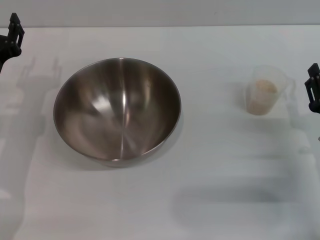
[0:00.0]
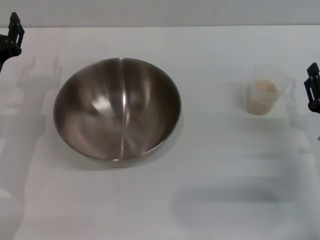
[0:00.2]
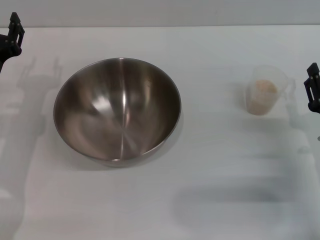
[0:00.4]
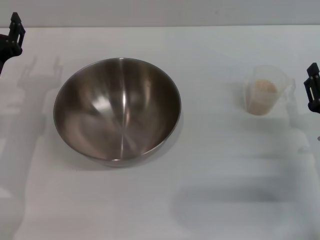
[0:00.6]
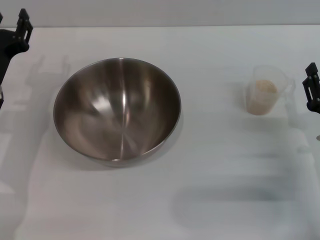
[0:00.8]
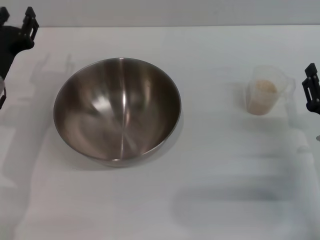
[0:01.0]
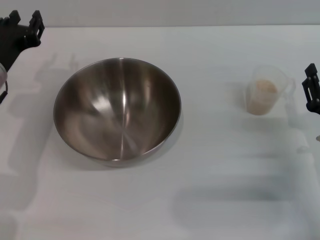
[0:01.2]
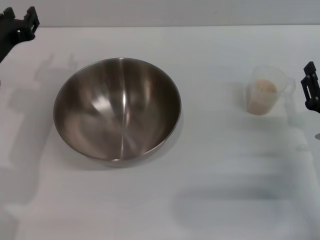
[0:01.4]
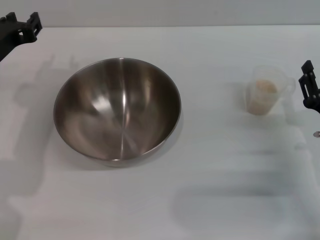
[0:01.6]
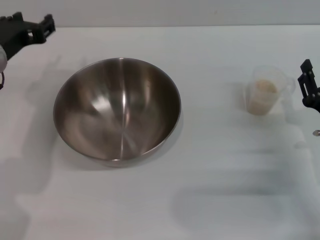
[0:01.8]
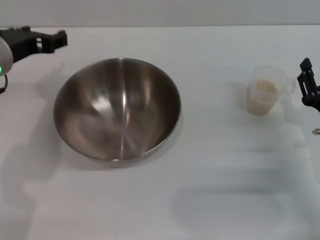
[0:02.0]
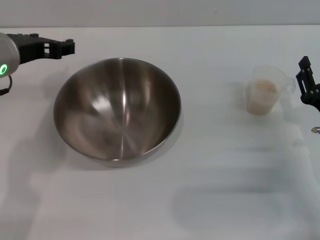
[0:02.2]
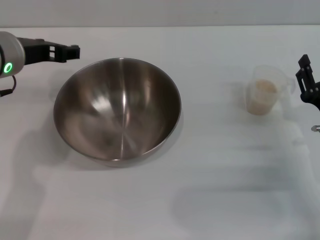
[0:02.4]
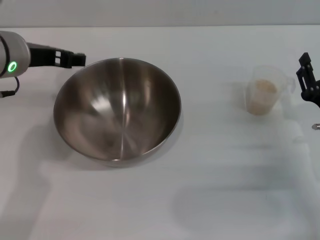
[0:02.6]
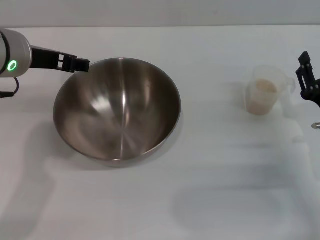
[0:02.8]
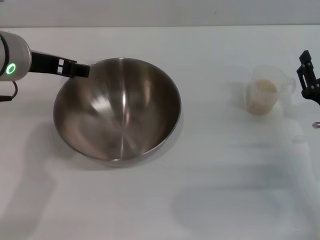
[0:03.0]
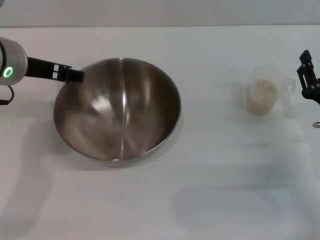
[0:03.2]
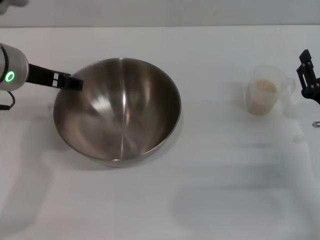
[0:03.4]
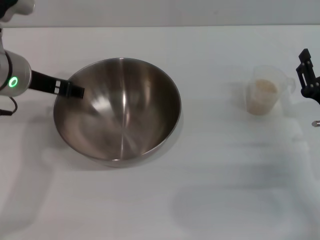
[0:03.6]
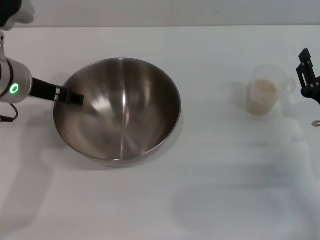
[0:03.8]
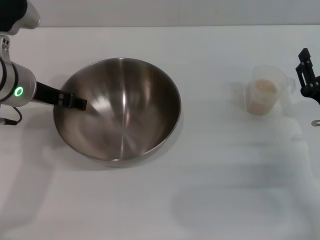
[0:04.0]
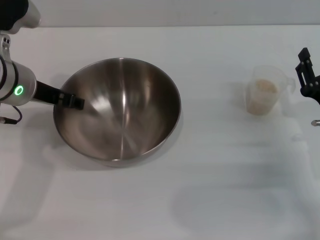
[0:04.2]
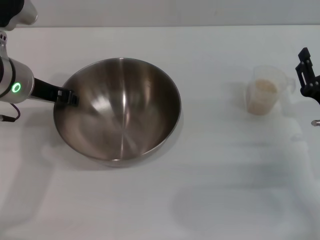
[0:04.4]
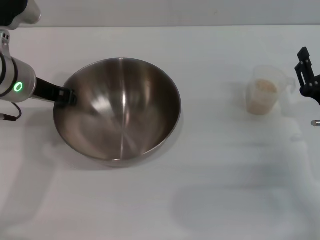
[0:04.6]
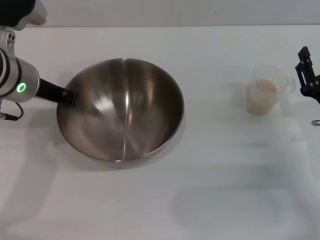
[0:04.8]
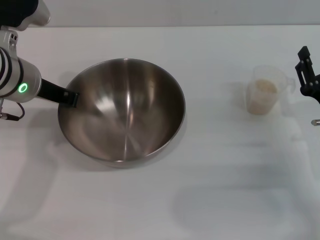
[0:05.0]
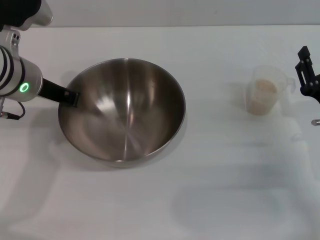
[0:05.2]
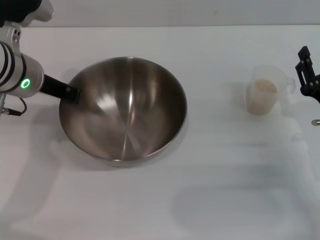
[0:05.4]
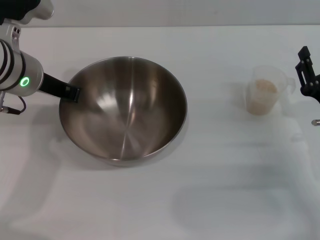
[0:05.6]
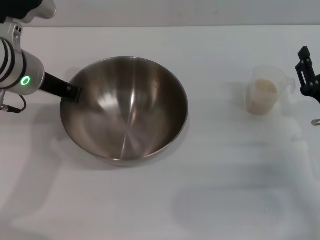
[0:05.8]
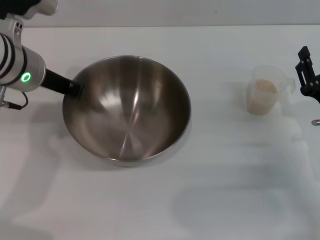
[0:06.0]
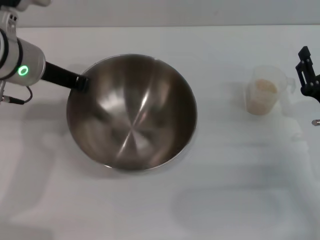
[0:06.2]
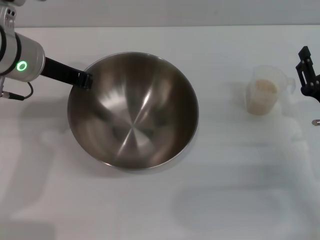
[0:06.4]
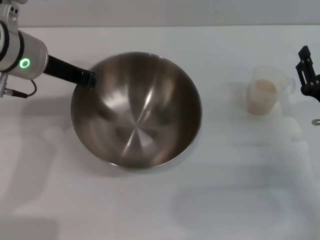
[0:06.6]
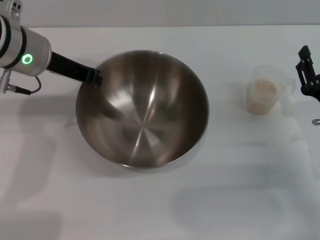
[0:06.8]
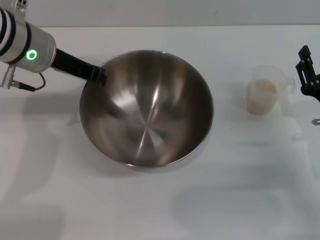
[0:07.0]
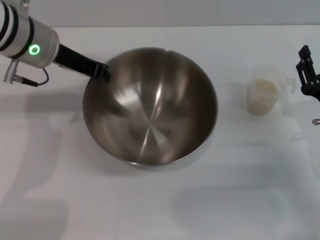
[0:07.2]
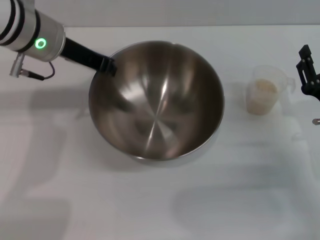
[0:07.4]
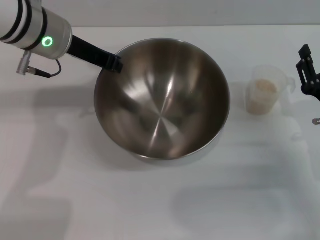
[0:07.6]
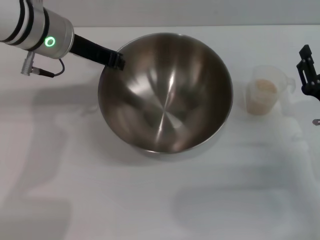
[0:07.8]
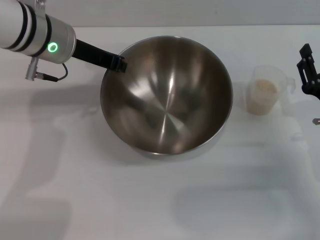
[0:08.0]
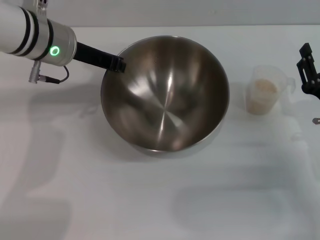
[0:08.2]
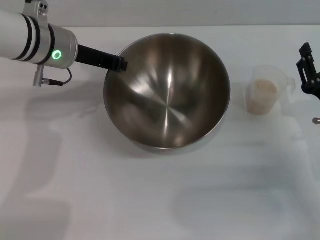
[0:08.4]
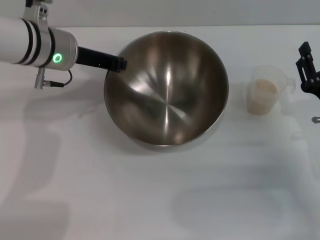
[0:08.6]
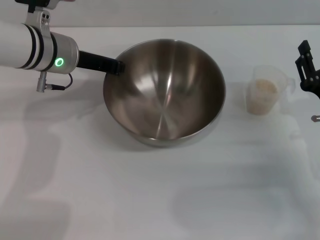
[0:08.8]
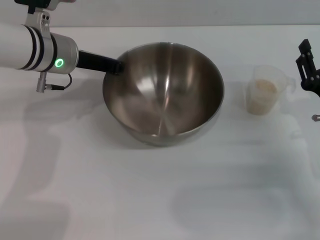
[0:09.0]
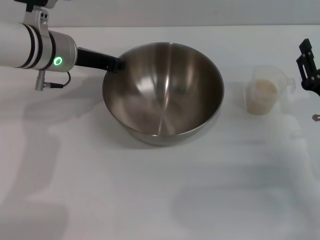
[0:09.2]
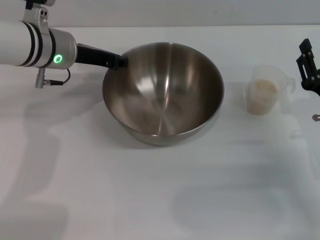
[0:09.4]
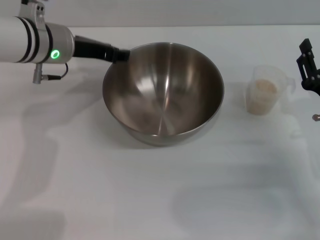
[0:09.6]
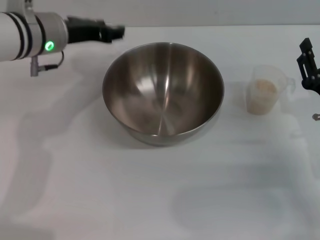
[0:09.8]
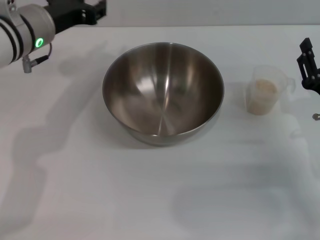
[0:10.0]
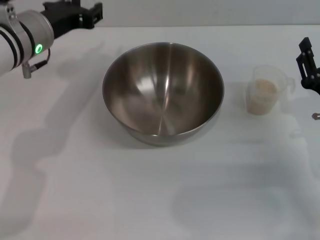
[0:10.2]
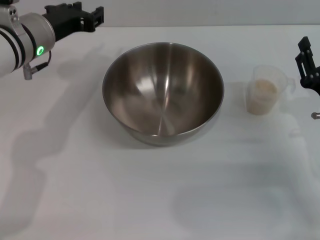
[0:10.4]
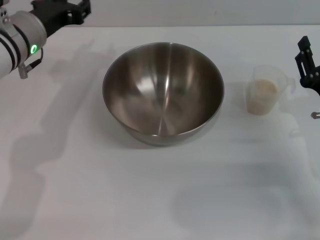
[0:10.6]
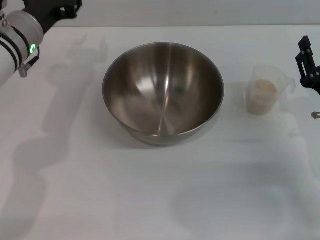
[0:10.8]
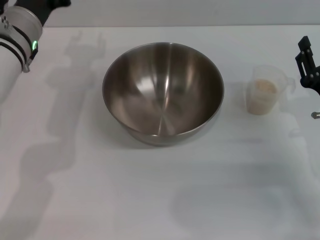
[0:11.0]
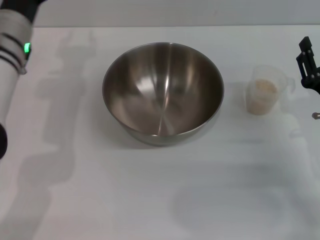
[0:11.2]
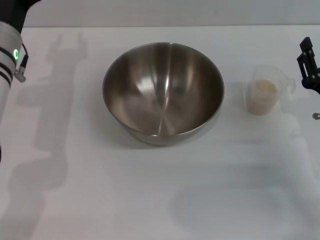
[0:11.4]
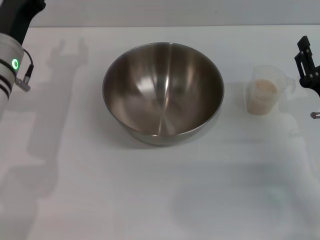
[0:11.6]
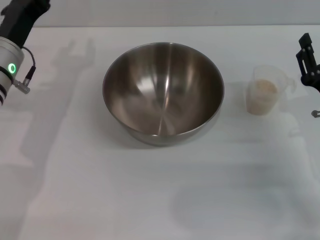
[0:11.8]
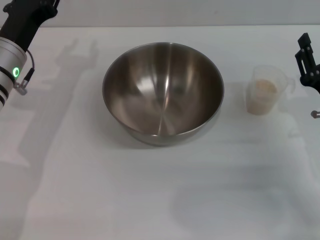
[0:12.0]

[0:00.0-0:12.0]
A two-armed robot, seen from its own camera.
Task of the whole recording: Place the bowl in the middle of the table with one hand and pour the rice from the grain cup into it with the other hand.
Step, 0:00.0 to 0:07.6: Pick up the bowl with the left gripper.
Step, 0:08.0 to 0:09.8: Place the bowl in the center of view with the left gripper.
0:00.0 to 0:01.6: The left gripper shifts roughly 10 cm upward.
0:01.6 to 0:03.0: The left gripper heads upward and to the right, covering about 10 cm, and opens its fingers.
0:03.0 to 0:04.4: The left gripper shifts by about 5 cm.
0:04.4 to 0:06.0: The left gripper closes its fingers.
0:07.6 to 0:09.0: The left gripper travels downward by about 5 cm.
0:09.0 to 0:10.4: The left gripper opens.
0:10.4 to 0:12.0: The left gripper heads downward, covering some 5 cm.

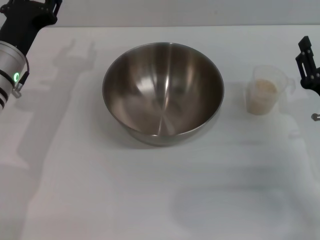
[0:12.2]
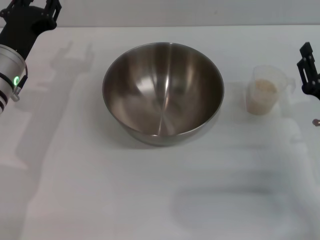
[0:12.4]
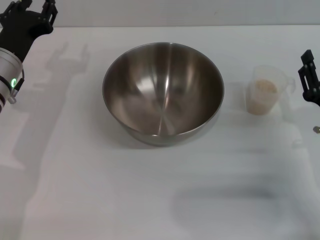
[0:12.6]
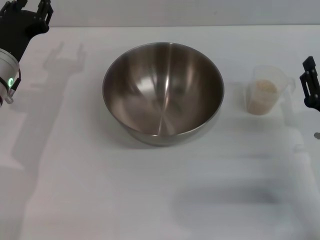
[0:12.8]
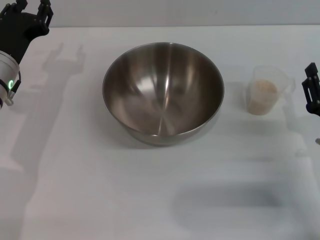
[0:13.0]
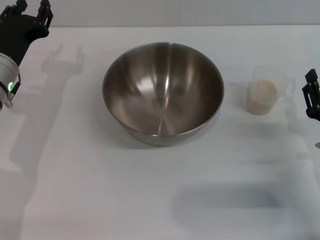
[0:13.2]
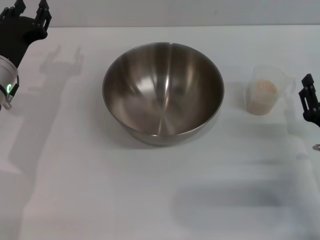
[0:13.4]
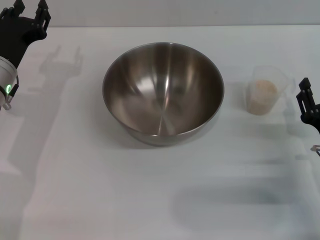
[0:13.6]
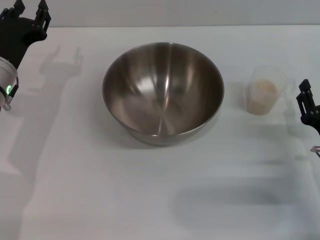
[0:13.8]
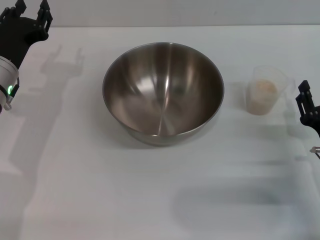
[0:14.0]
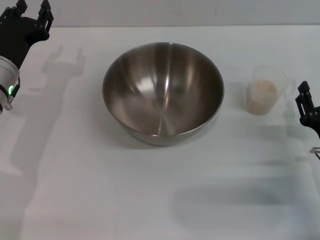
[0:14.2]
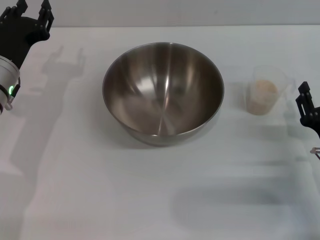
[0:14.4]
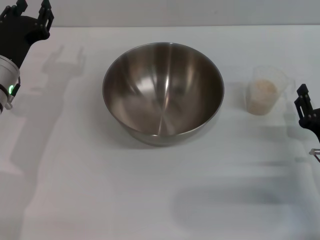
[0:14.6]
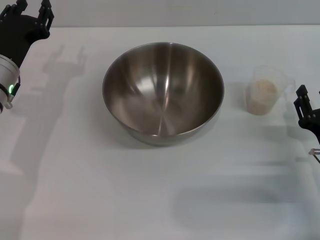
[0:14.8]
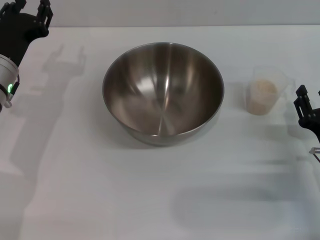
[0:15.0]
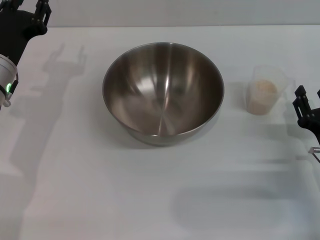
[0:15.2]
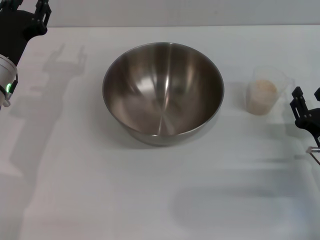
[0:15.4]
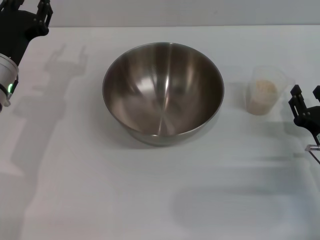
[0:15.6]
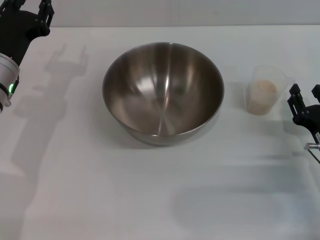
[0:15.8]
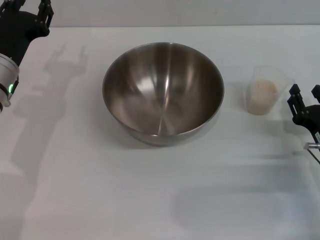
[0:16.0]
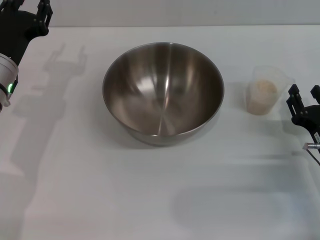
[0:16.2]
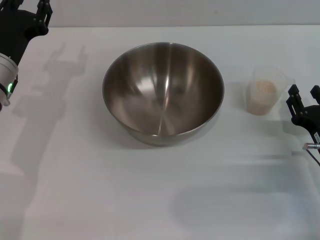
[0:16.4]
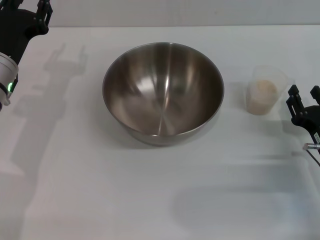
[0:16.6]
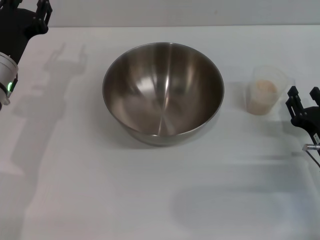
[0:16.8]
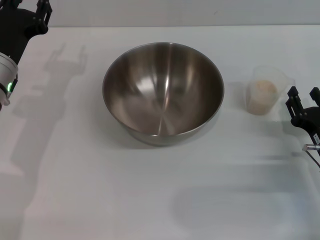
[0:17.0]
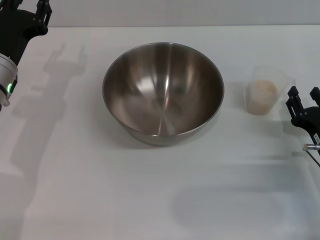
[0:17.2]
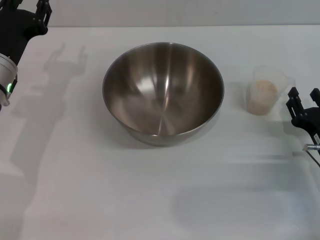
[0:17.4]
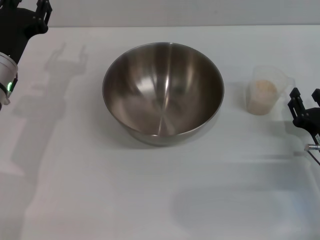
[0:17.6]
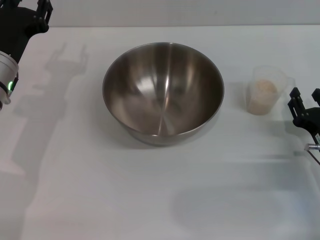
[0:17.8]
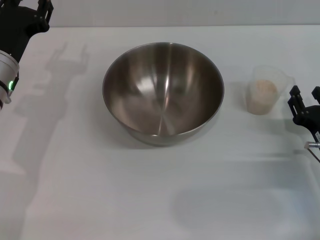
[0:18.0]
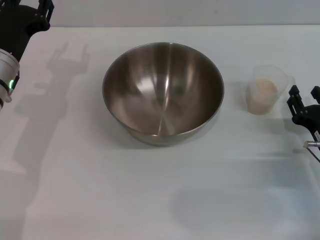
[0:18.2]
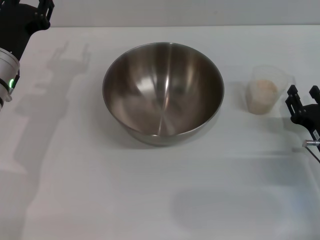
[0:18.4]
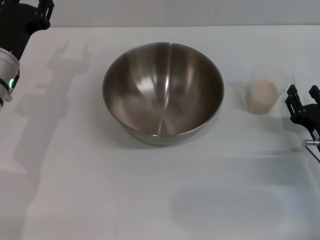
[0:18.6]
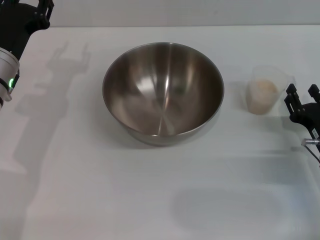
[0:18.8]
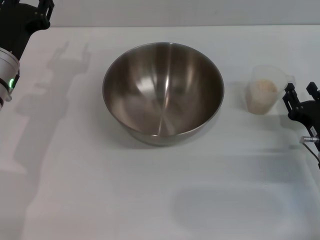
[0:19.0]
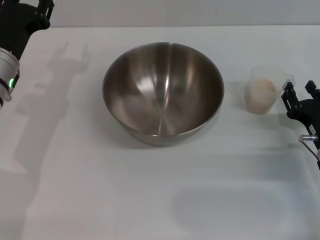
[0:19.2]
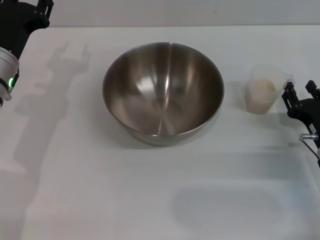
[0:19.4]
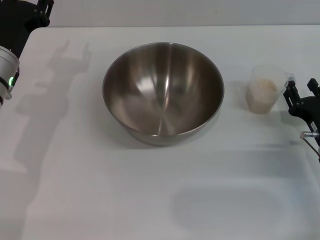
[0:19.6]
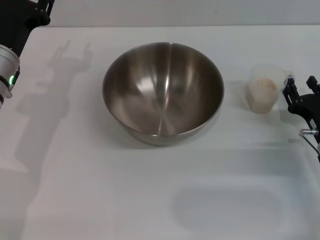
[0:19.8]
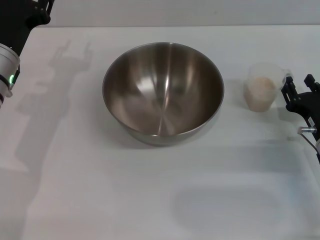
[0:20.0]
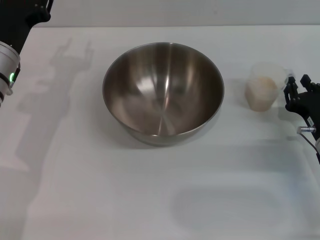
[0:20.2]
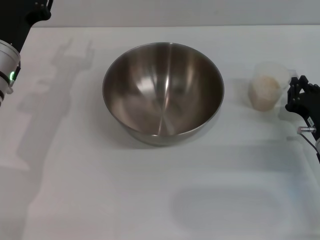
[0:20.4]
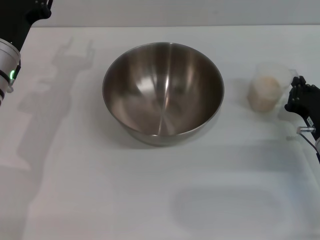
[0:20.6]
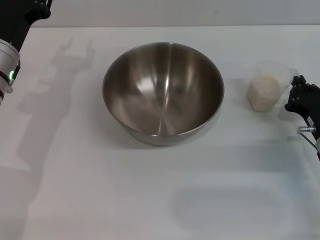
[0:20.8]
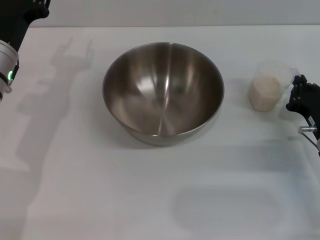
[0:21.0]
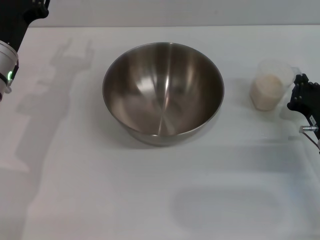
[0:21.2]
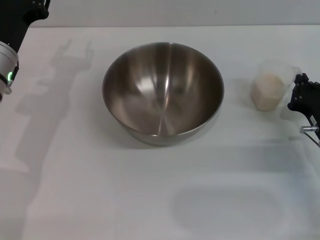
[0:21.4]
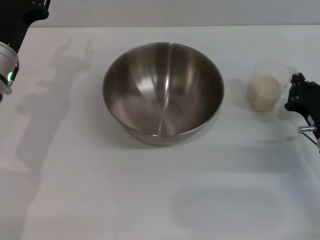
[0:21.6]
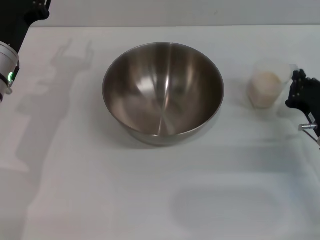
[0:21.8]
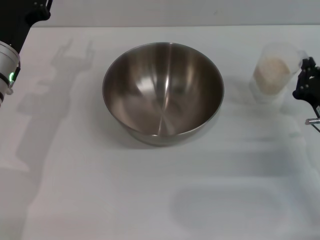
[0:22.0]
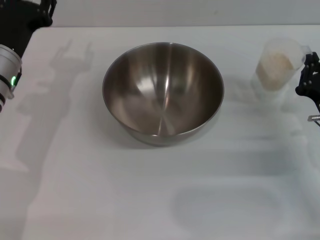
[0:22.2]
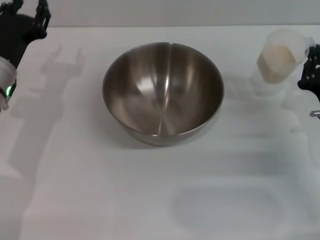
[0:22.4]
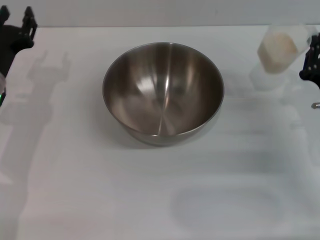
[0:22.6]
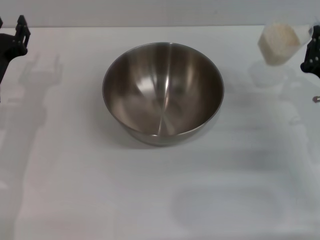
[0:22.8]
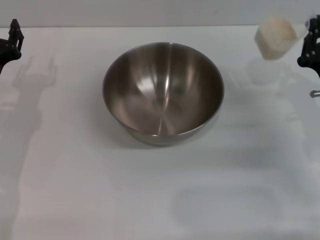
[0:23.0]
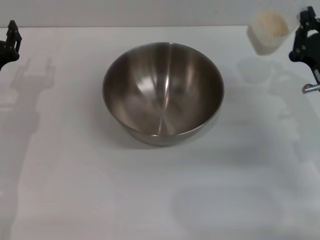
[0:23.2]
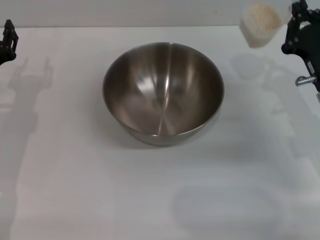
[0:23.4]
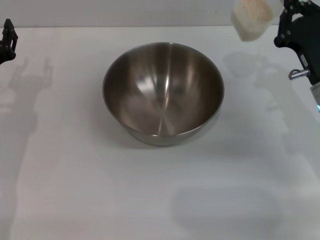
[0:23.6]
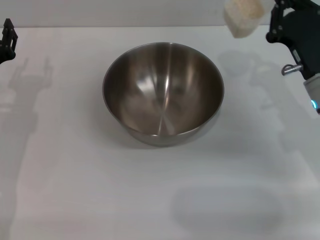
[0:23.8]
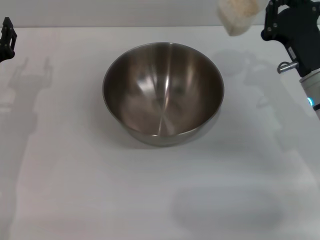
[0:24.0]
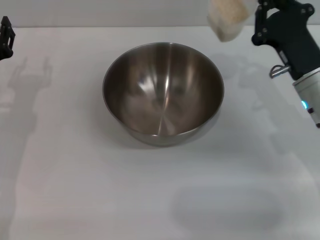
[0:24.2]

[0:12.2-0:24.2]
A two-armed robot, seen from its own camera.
Task of the whole recording: Place the bowl in the middle of the table with one hand and pour the rice from the grain cup into it with the other hand.
Step, 0:12.2 to 0:22.2: Pick up the cup with rice in it with the right gripper.
0:12.2 to 0:13.8: There are only small adjustments of the grippers.
0:13.8 to 0:15.2: Both grippers stay about where they are.
0:15.2 to 0:16.6: Both grippers stay about where they are.
0:16.6 to 0:18.2: Both grippers stay about where they are.
0:18.2 to 0:19.8: There are only small adjustments of the grippers.
0:19.8 to 0:21.2: The right gripper closes its fingers.
0:21.2 to 0:22.6: There are only small adjustments of the grippers.
0:22.6 to 0:24.2: The right gripper shifts about 5 cm to the left.
